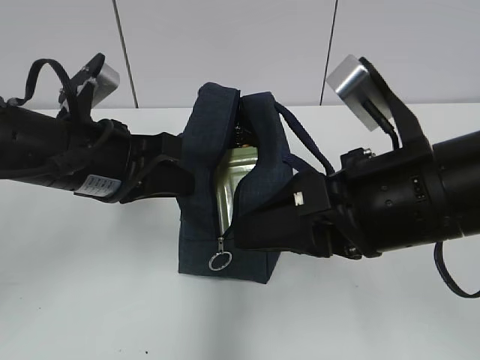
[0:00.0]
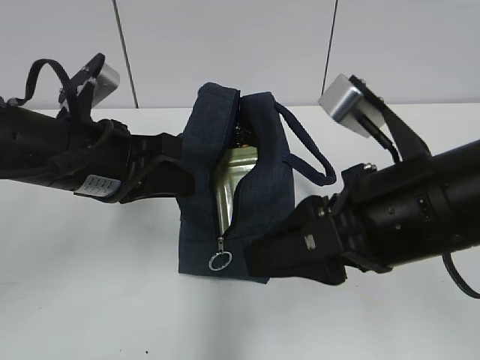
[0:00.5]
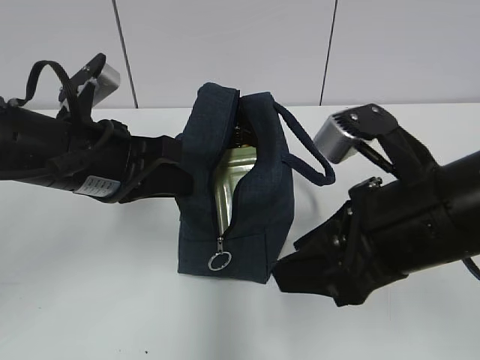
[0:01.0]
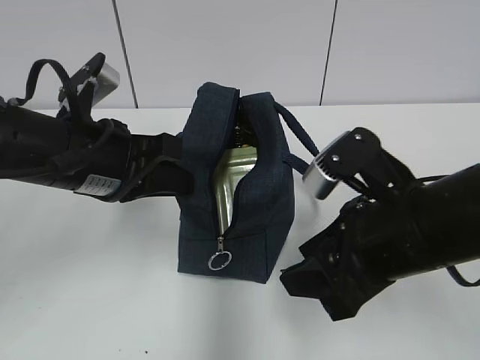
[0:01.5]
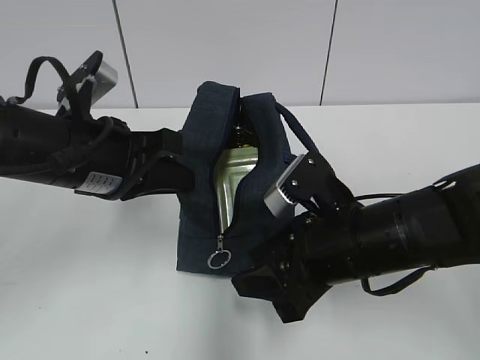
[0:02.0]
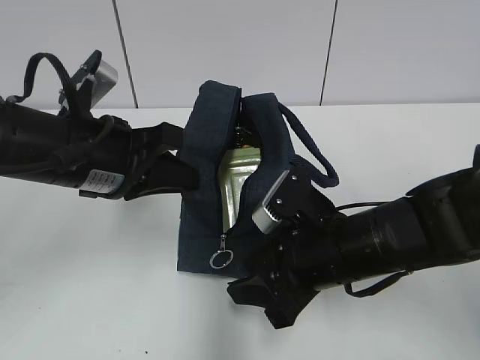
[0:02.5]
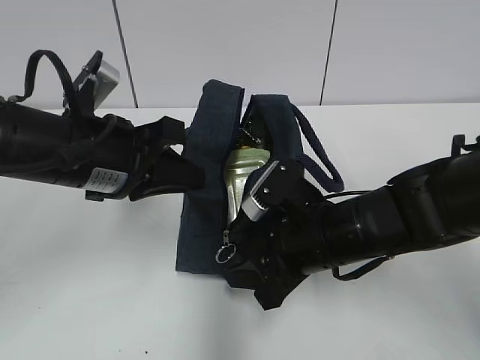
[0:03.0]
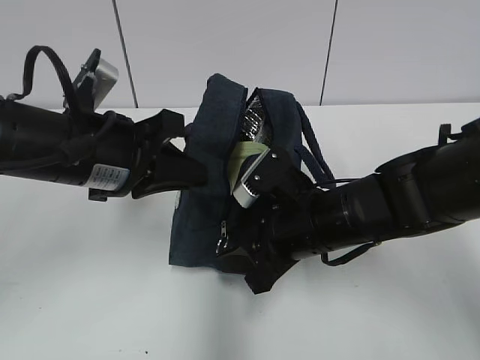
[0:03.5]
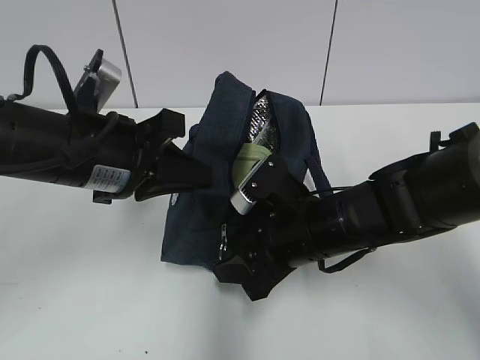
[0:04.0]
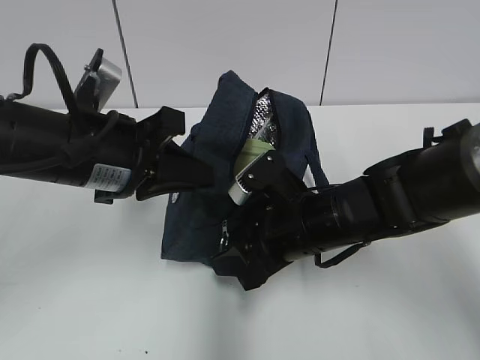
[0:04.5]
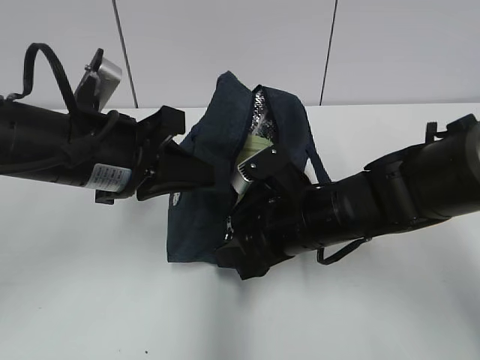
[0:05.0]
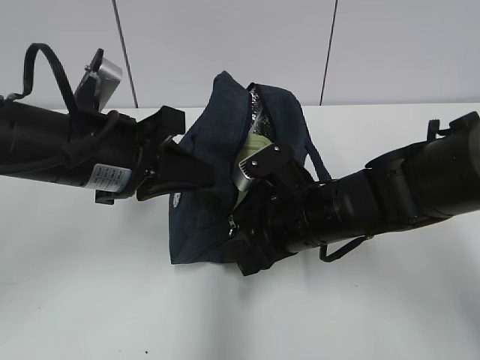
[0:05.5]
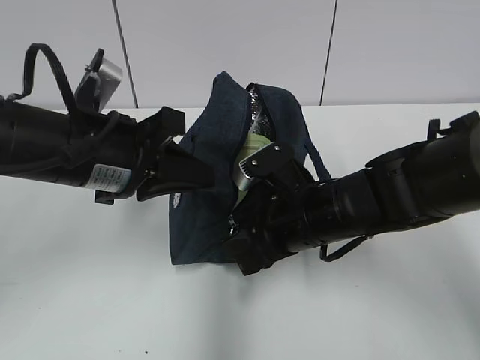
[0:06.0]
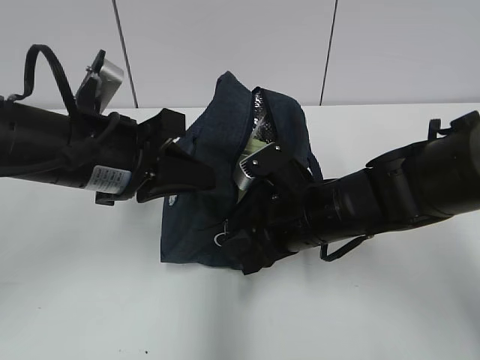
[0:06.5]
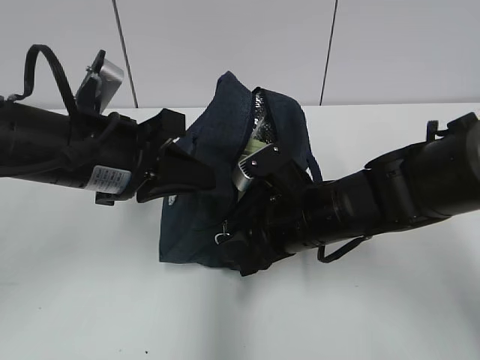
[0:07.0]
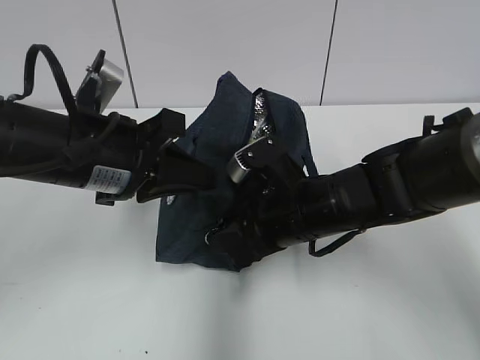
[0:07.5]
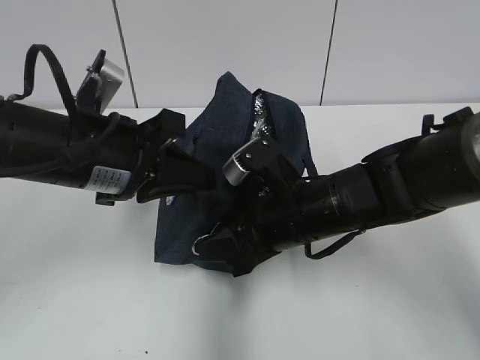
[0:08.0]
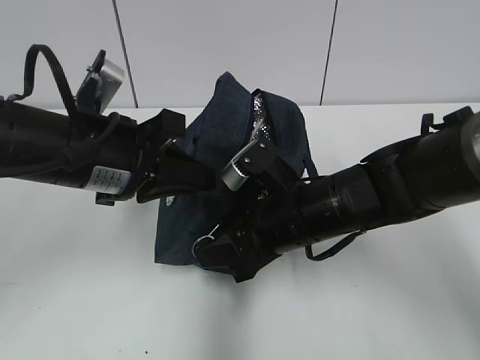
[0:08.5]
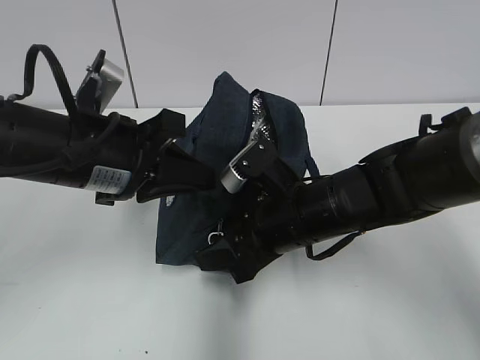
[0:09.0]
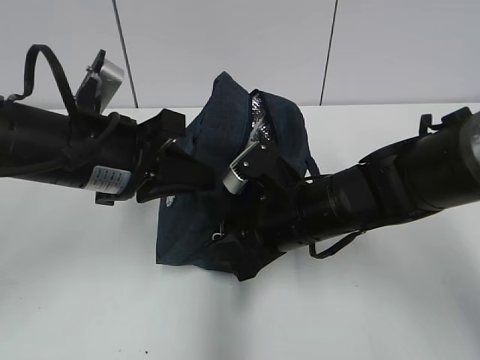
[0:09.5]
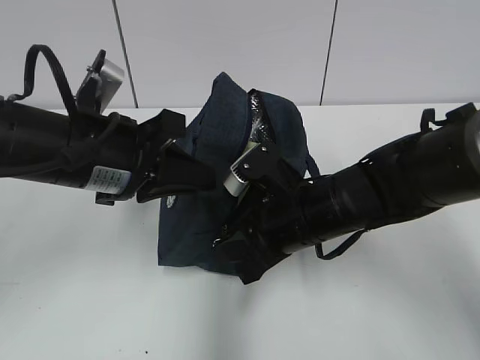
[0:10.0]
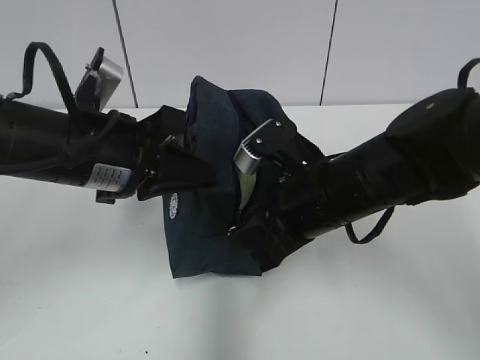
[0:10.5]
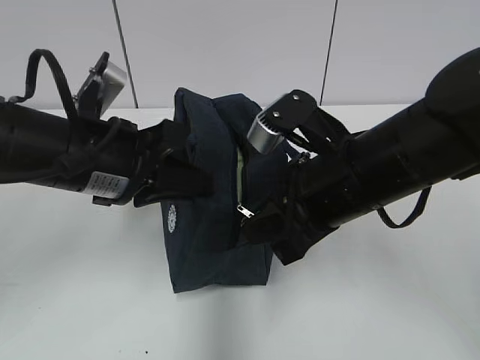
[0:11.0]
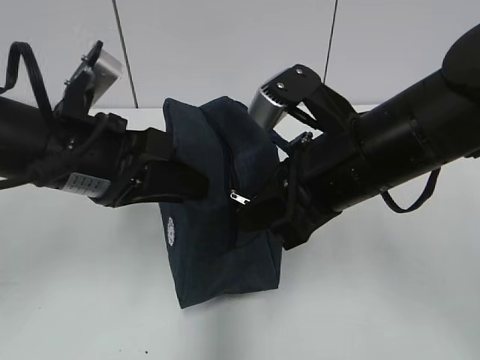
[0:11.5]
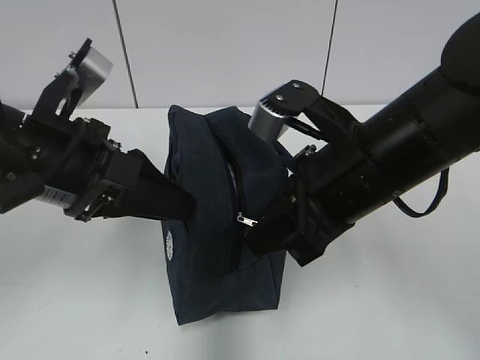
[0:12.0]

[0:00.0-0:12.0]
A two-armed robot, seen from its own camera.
0:00.0 to 0:02.0: The right gripper goes roughly 10 cm downward.
0:02.0 to 0:04.0: The right gripper ends up about 5 cm from where it was.
0:04.0 to 0:08.0: The grippers move only a little.
0:08.0 to 0:10.0: The right gripper closes up.
0:10.0 to 0:12.0: The right gripper moves upward and backward, about 10 cm, while the left gripper opens.

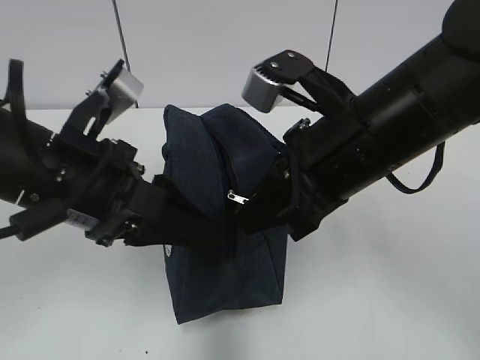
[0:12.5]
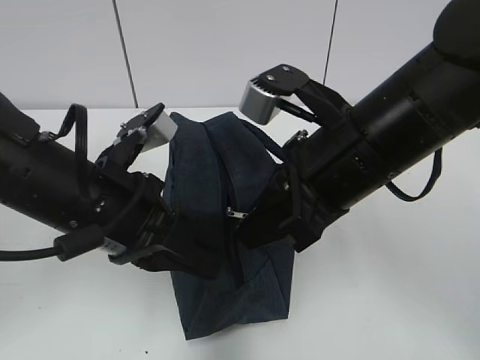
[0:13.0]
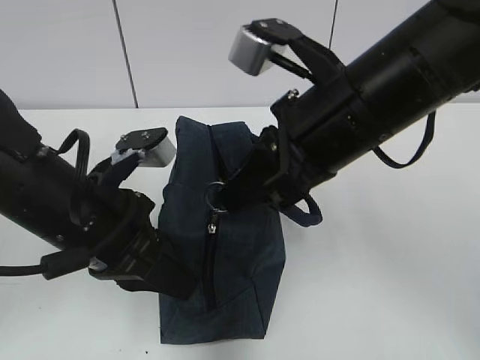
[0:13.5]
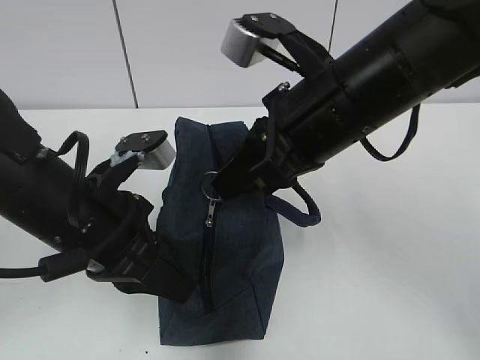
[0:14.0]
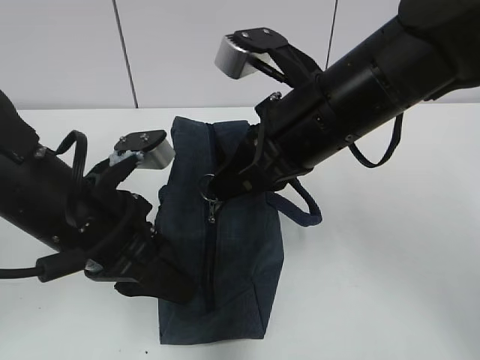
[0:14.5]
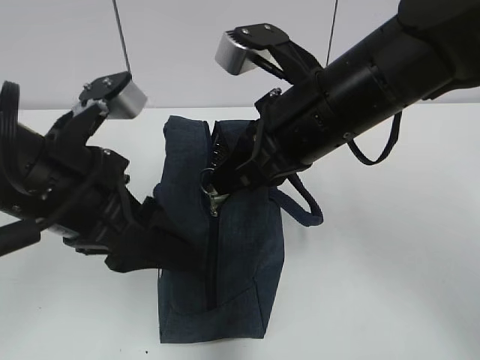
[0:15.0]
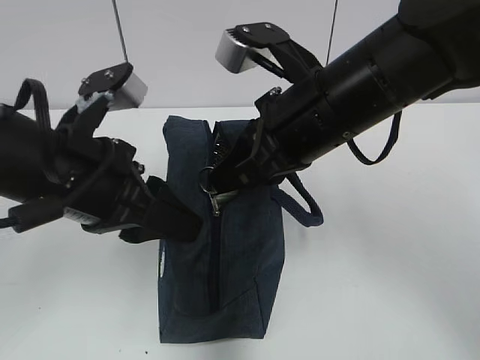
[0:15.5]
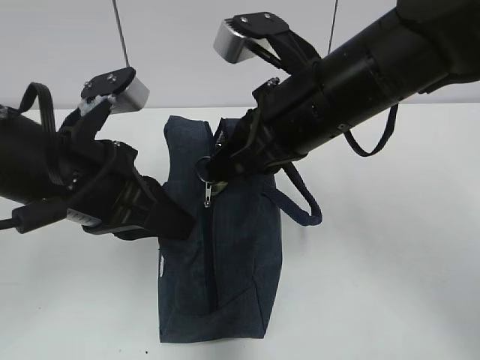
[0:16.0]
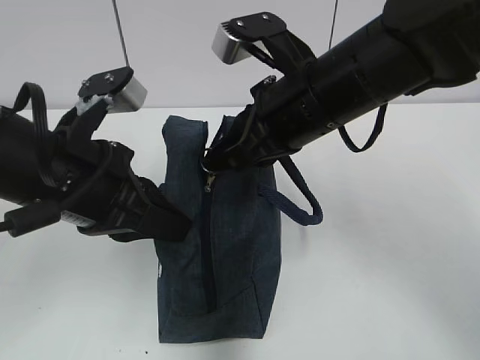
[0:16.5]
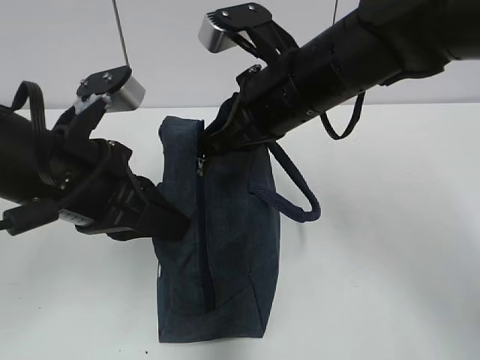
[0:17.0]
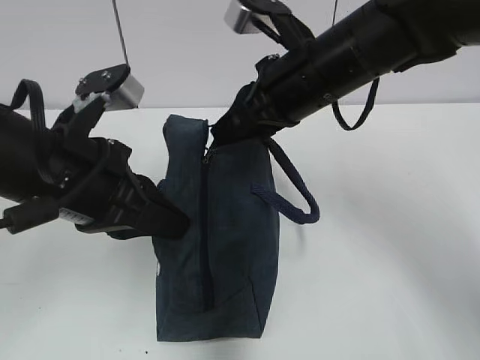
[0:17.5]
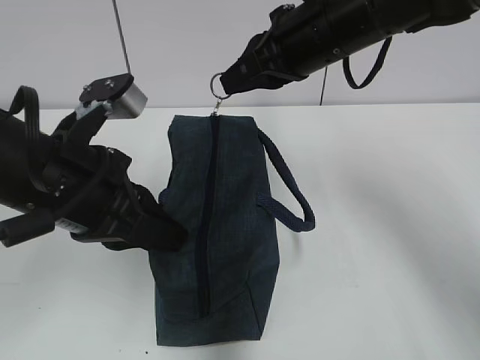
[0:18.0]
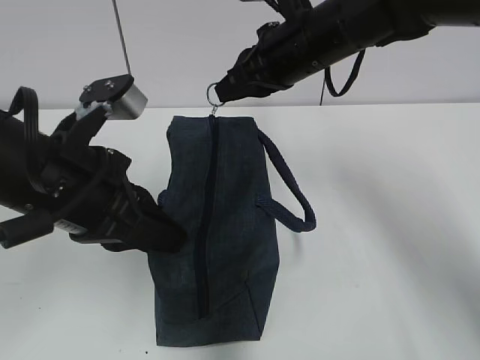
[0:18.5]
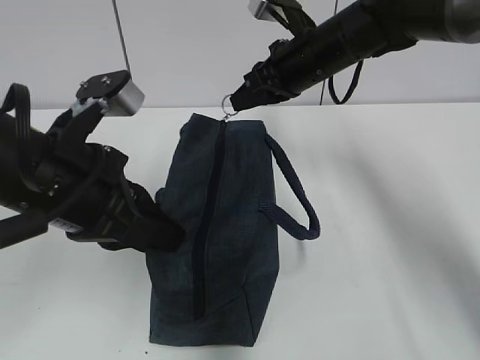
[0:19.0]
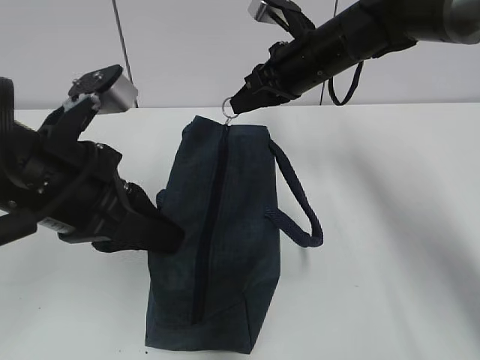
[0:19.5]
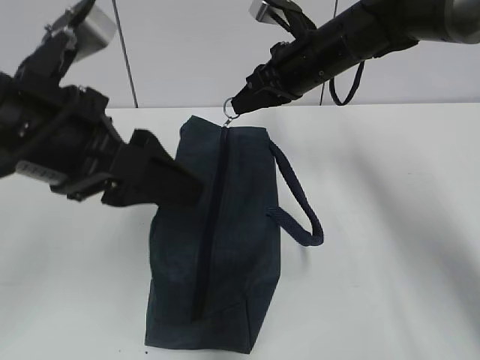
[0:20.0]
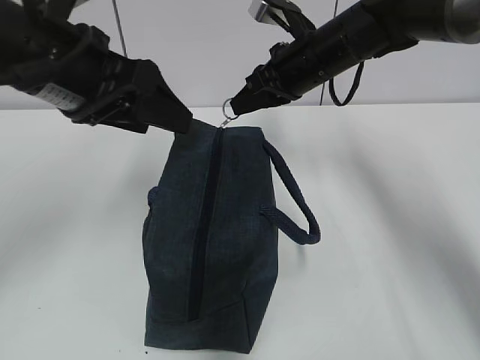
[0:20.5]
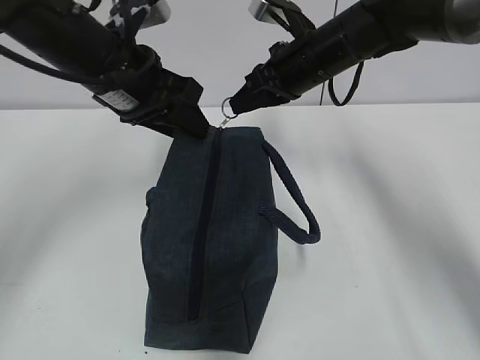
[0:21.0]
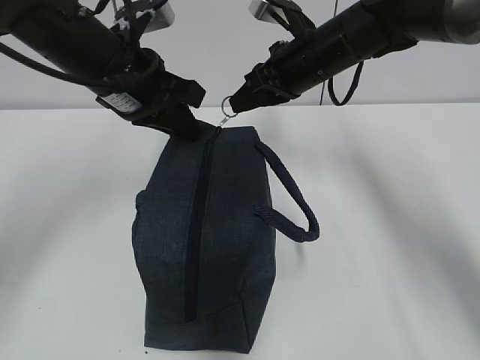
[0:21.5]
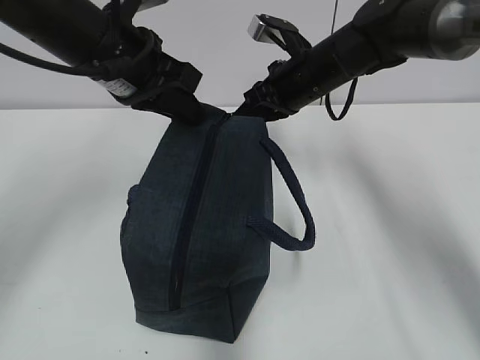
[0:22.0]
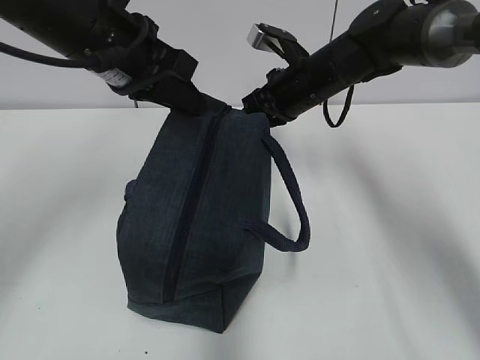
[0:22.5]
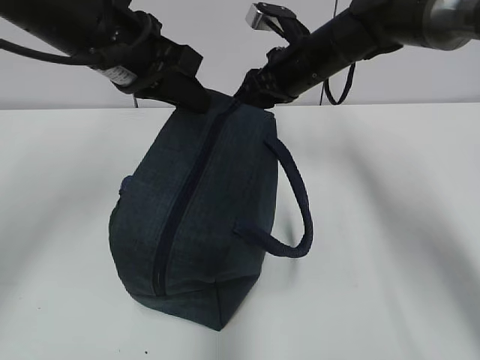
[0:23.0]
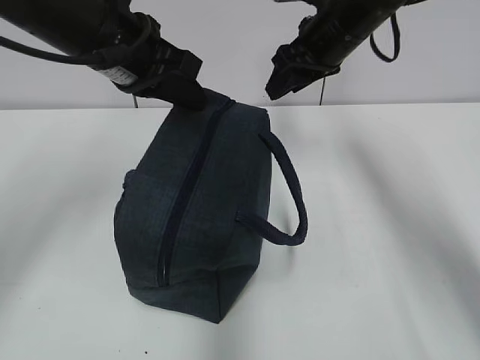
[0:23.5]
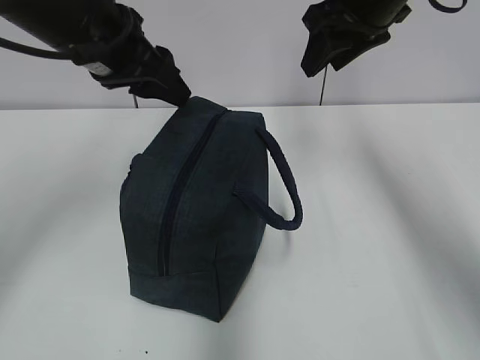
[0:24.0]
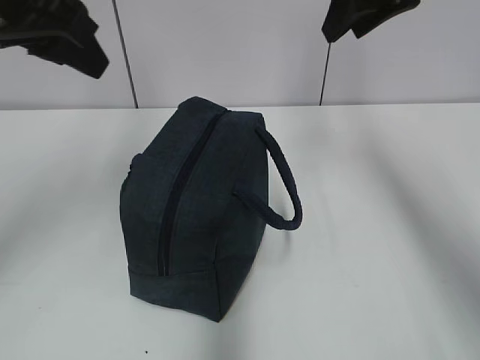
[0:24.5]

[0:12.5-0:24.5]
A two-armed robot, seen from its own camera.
Step, 0:14.0 to 0:22.5: Pull the zipper with your right hand.
0:12.5 to 0:14.5: The left gripper closes up.
0:14.5 to 0:16.5: The left gripper opens, then closes once more.
0:16.5 to 0:18.5: The right gripper heads forward, covering some 10 cm.
0:18.5 to 0:20.5: The right gripper changes place by approximately 5 cm, while the left gripper shifts roughly 10 cm upward and forward, and opens its fingers.
0:20.5 to 0:22.5: The left gripper shifts about 5 cm forward, and closes up.
0:22.5 to 0:24.5: The right gripper heads upward and backward, covering about 20 cm, and opens up. Meanwhile the left gripper moves upward and to the left, approximately 10 cm, and opens up.

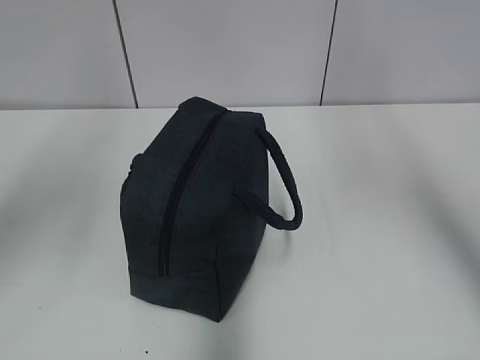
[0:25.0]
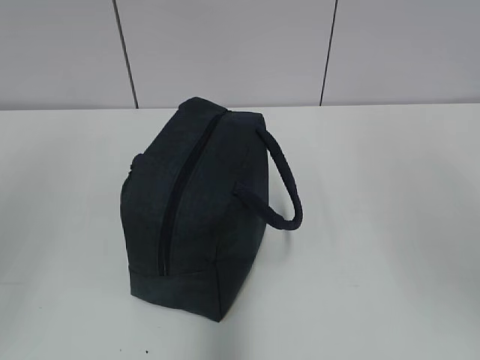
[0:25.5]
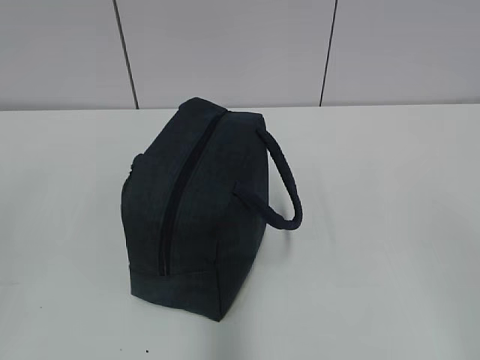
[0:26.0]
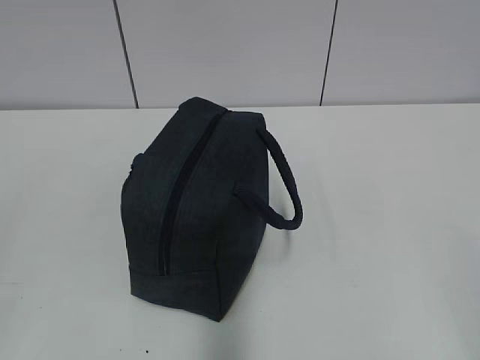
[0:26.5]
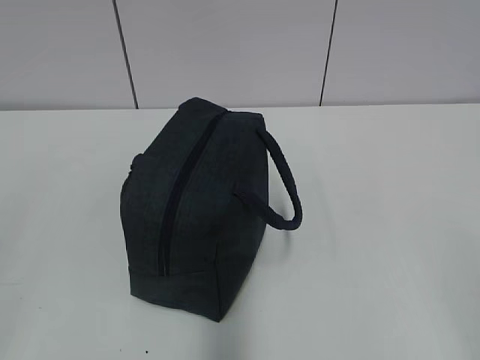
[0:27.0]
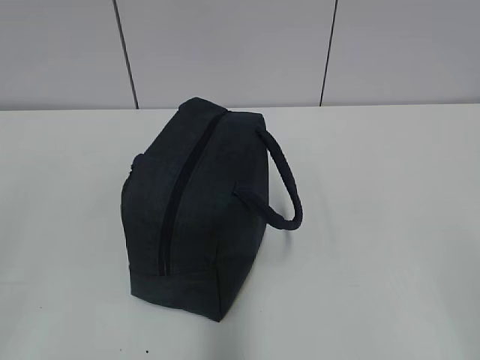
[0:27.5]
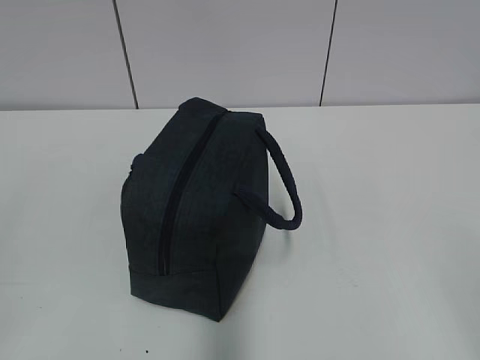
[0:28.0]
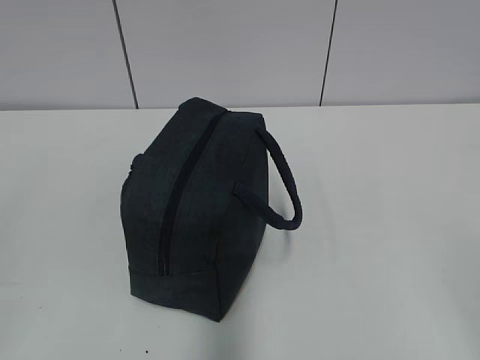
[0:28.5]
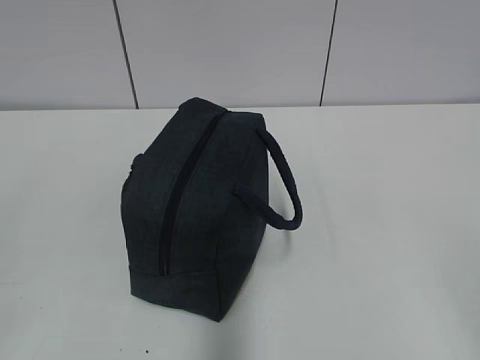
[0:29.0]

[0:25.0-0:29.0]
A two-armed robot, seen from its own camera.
0:25.0 to 0:27.0: The right gripper goes about 35 cm backward and downward.
